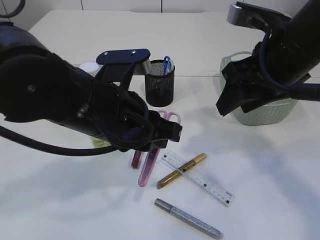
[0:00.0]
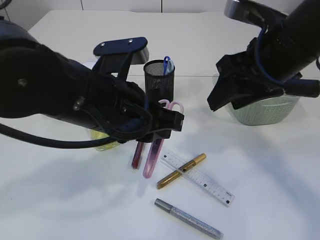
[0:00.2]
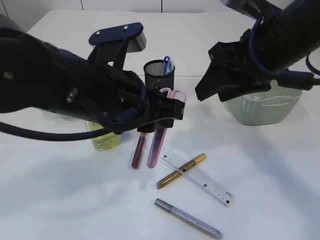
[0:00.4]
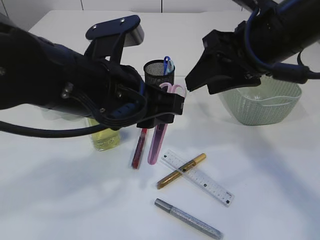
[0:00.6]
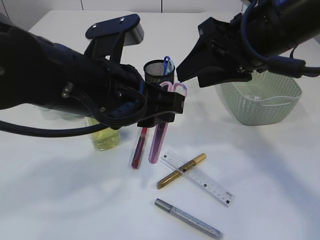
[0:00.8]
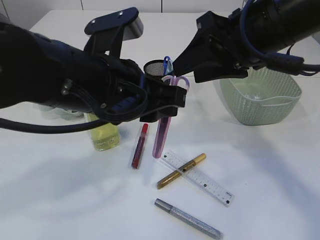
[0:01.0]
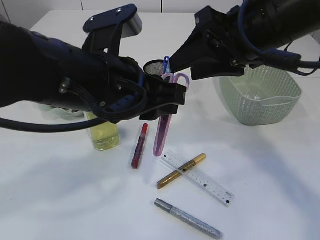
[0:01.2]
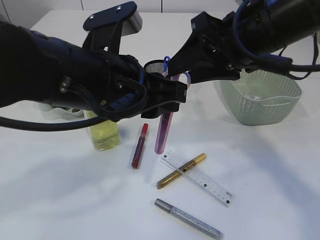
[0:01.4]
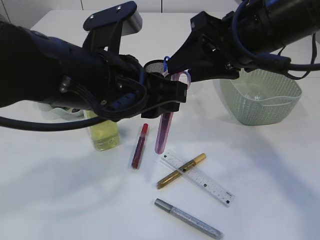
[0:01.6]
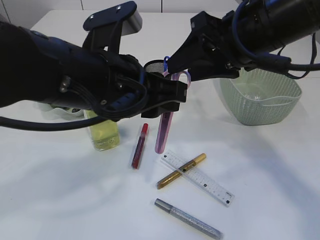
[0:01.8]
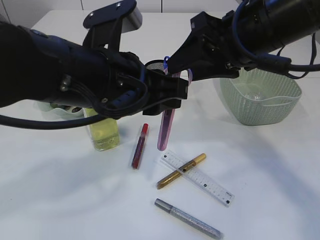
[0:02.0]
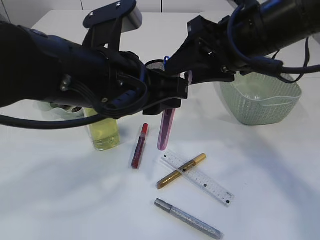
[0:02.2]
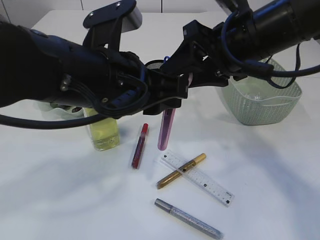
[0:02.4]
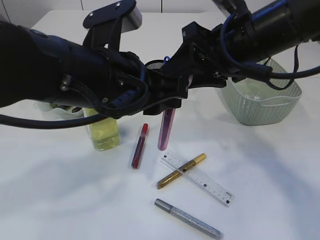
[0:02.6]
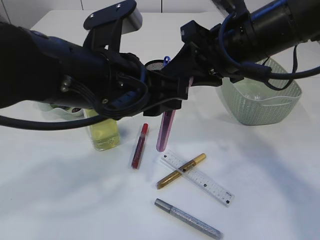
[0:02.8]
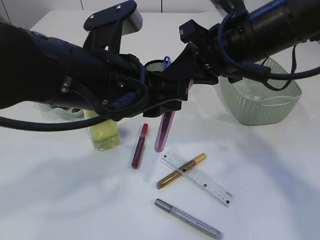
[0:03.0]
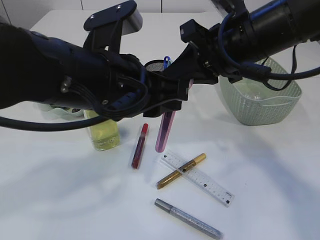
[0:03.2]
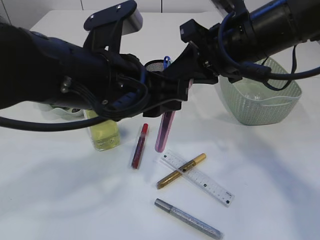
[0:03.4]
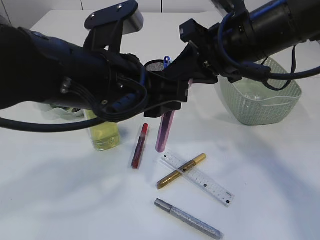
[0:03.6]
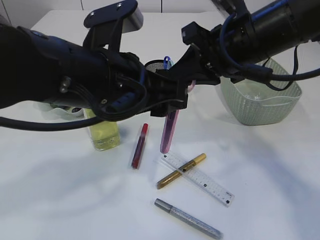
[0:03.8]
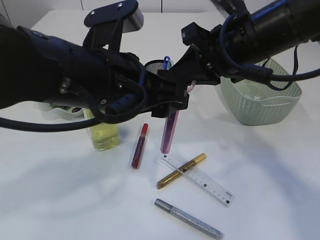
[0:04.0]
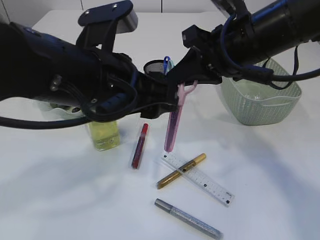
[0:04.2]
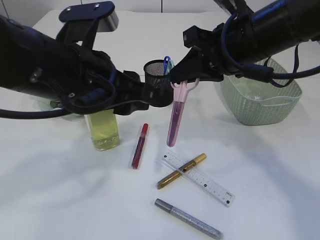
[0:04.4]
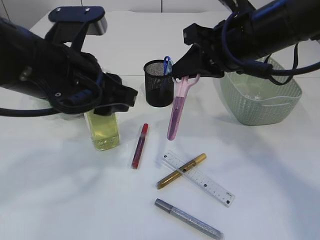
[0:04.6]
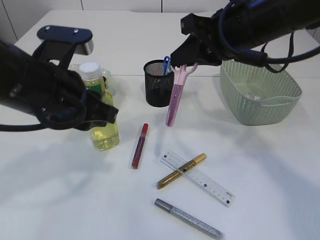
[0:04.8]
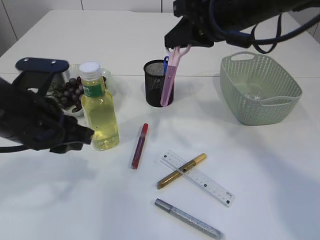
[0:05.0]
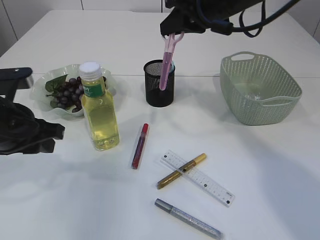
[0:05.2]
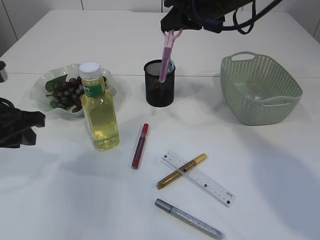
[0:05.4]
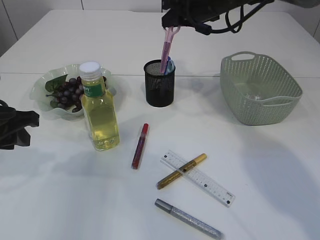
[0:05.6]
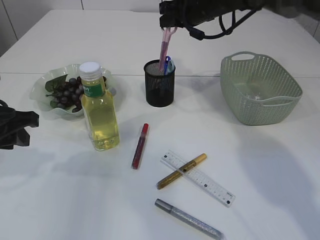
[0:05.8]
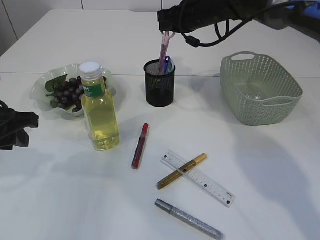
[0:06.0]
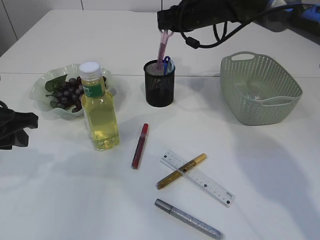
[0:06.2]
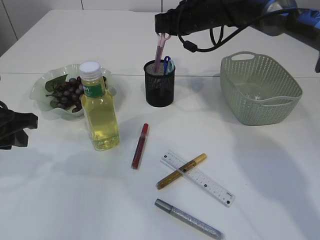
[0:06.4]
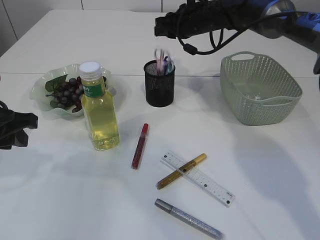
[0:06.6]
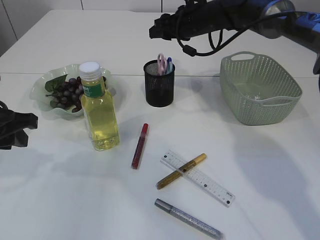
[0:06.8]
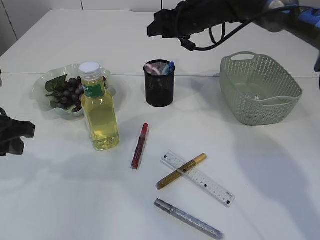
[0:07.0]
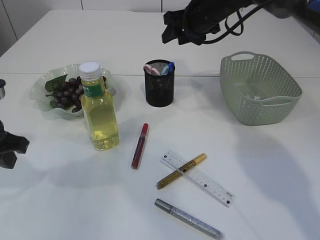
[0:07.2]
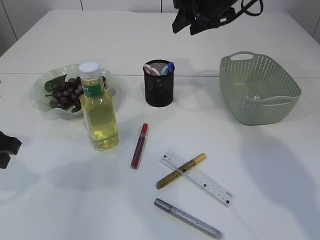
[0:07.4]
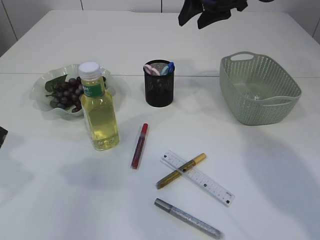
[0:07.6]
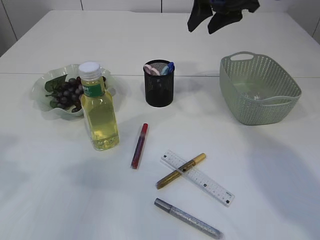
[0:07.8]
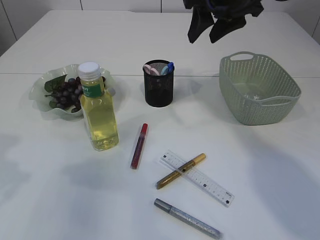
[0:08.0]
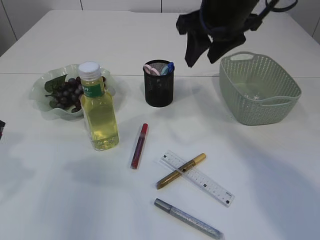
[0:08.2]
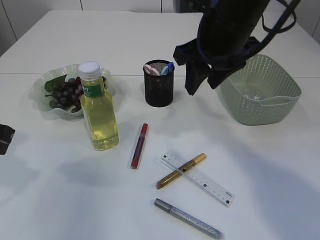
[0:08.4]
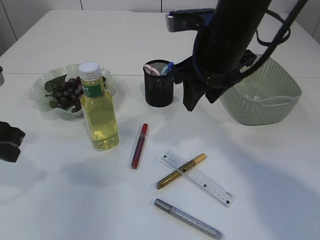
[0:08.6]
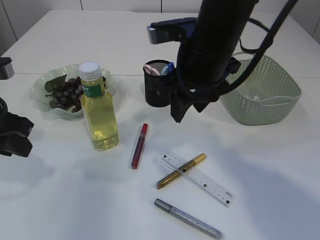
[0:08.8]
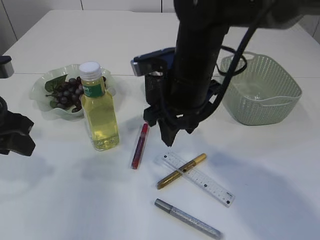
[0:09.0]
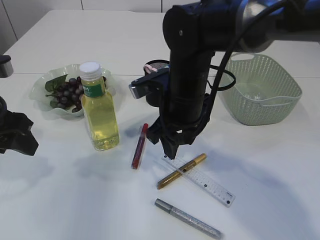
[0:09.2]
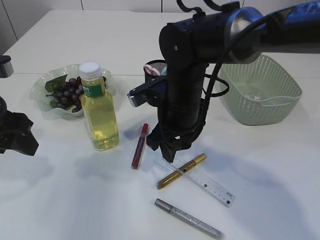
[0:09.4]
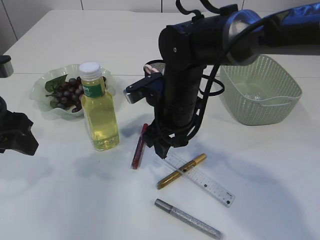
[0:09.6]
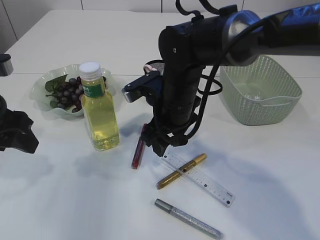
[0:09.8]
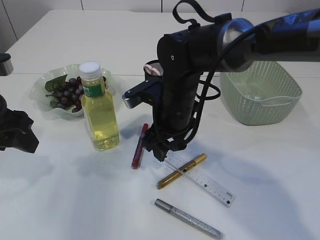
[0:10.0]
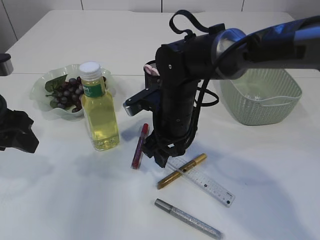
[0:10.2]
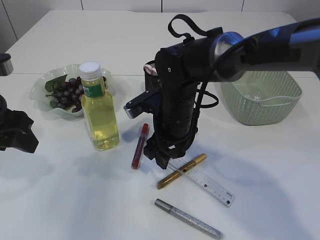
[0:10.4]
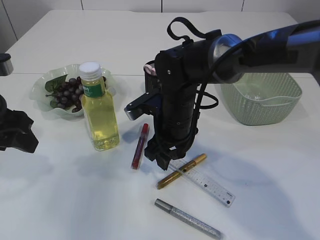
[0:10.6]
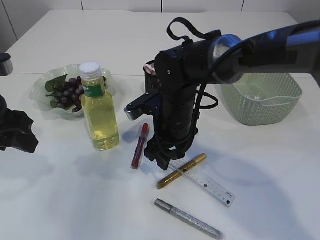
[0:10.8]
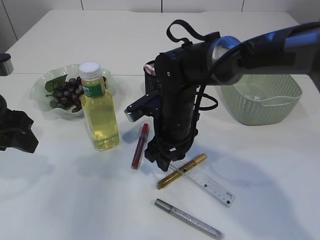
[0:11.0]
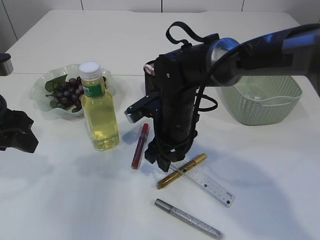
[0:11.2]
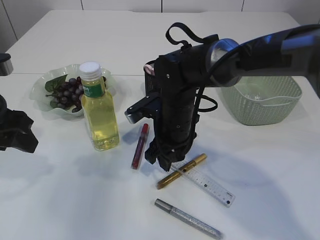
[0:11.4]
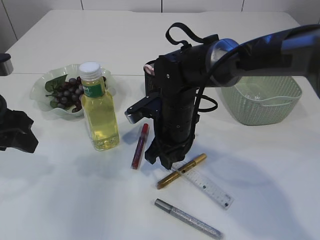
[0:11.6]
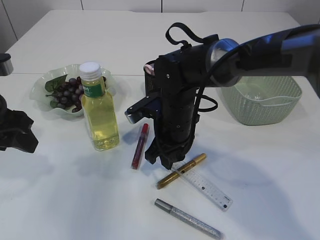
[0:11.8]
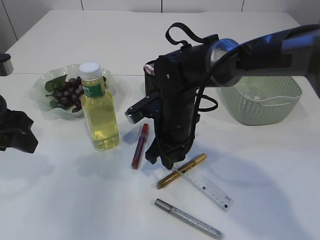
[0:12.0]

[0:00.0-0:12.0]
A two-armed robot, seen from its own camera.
Step, 0:00.0 to 0:05.0: Hand over the pink scissors.
Step, 0:05.2 to 0:06.8: Place the pink scissors into the pen holder.
0:01.6 to 0:03.0: The right gripper closes its fingers.
0:03.0 to 0:04.4: The left gripper opens.
0:04.4 to 0:06.0: The right gripper is displaced forward by approximately 20 cm. Meanwhile the left gripper goes some 20 cm to the left and downward.
0:06.0 to 0:07.6: The right gripper goes roughly 10 cm upward and backward, and opens.
0:07.6 to 0:09.0: The right gripper goes about 20 cm backward, to the left and downward.
0:09.0 to 0:10.4: The right gripper moves downward, some 10 cm.
0:10.4 to 0:12.0: The right gripper closes.

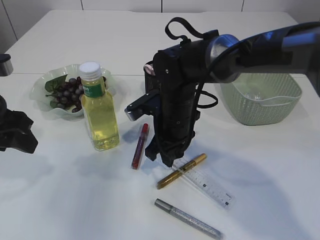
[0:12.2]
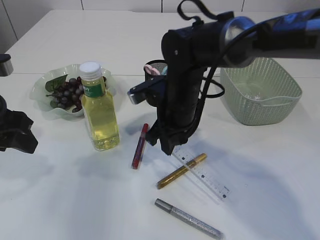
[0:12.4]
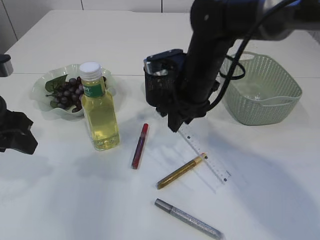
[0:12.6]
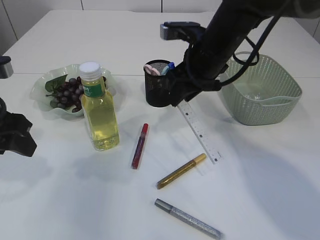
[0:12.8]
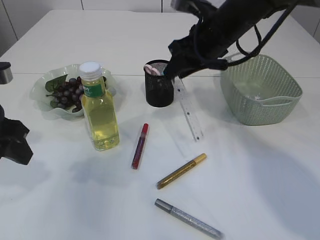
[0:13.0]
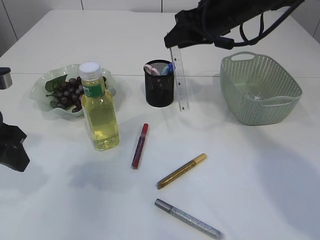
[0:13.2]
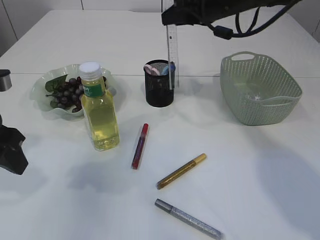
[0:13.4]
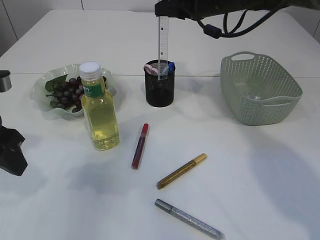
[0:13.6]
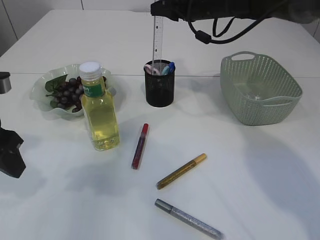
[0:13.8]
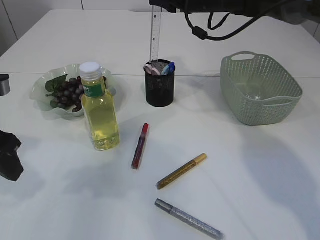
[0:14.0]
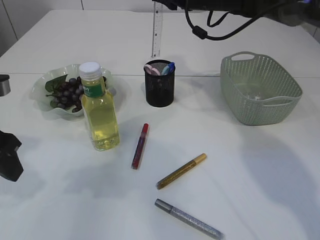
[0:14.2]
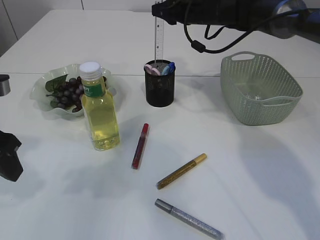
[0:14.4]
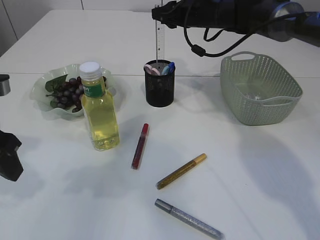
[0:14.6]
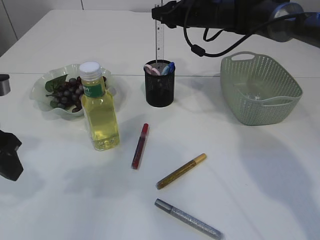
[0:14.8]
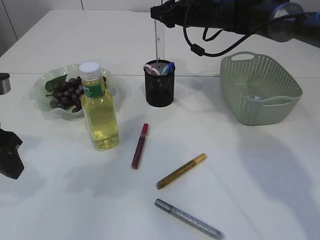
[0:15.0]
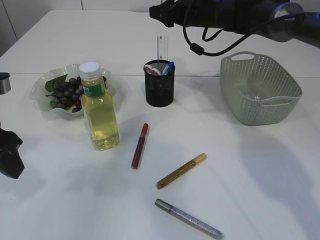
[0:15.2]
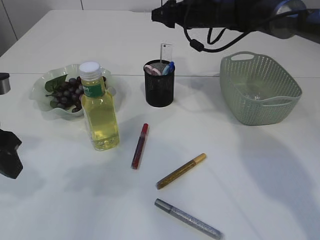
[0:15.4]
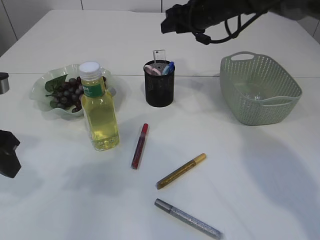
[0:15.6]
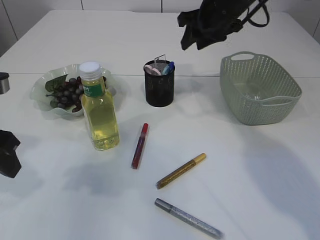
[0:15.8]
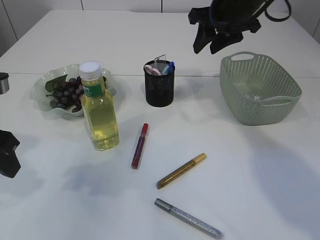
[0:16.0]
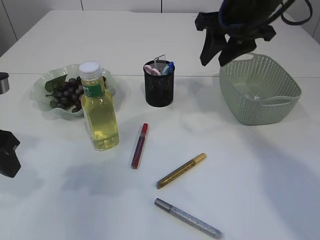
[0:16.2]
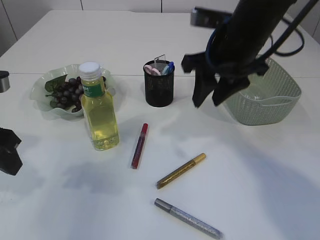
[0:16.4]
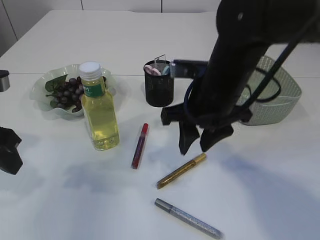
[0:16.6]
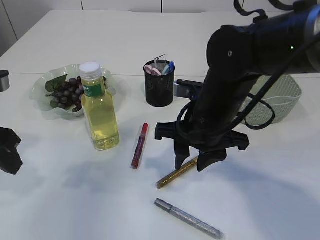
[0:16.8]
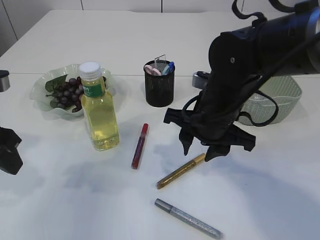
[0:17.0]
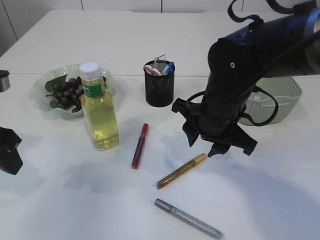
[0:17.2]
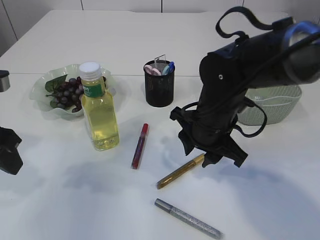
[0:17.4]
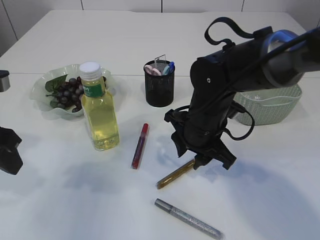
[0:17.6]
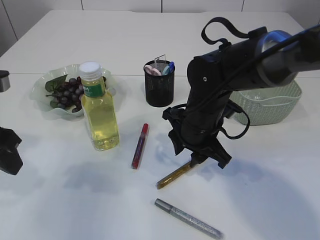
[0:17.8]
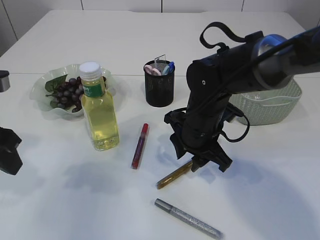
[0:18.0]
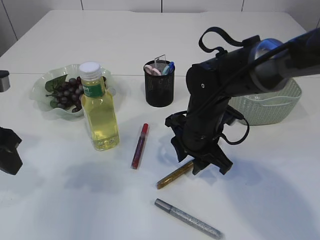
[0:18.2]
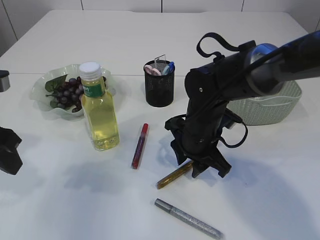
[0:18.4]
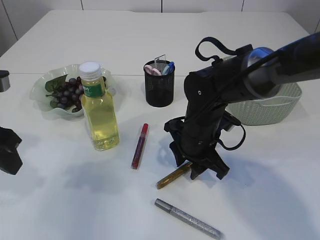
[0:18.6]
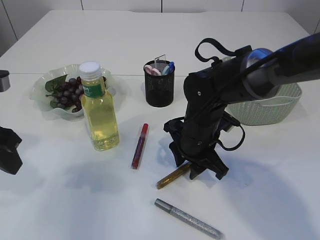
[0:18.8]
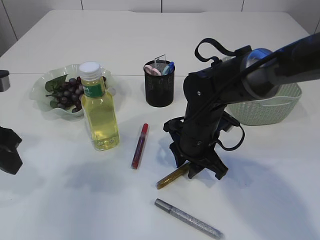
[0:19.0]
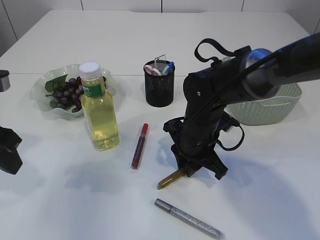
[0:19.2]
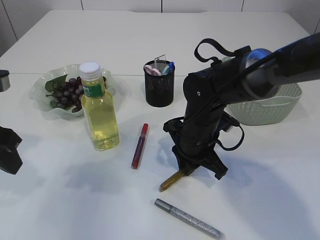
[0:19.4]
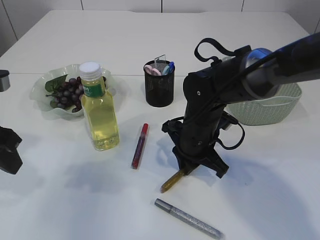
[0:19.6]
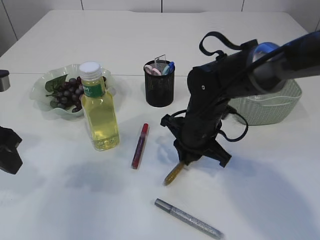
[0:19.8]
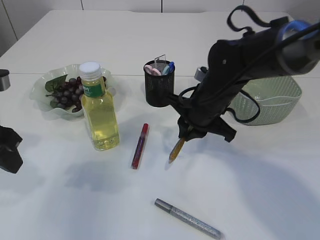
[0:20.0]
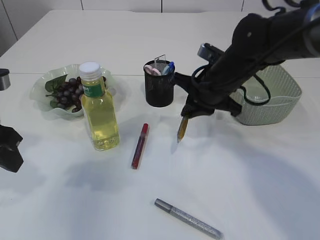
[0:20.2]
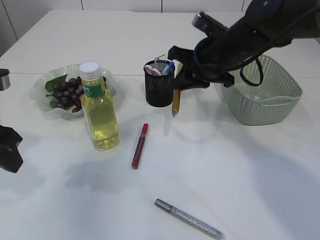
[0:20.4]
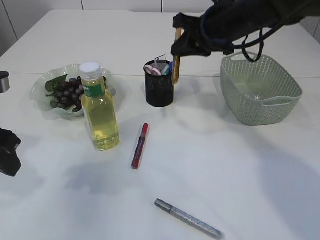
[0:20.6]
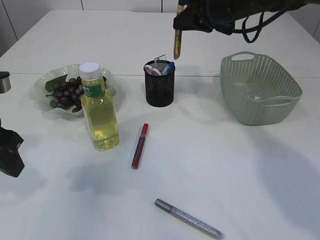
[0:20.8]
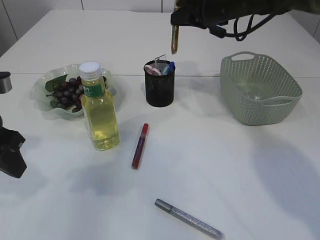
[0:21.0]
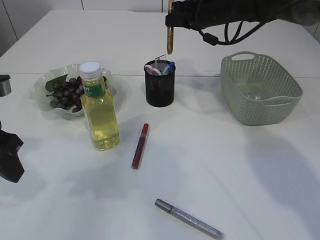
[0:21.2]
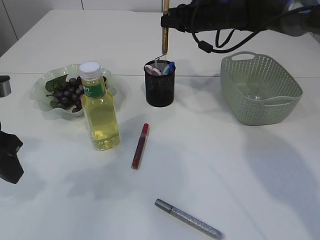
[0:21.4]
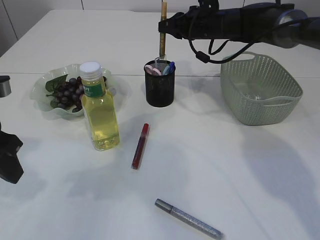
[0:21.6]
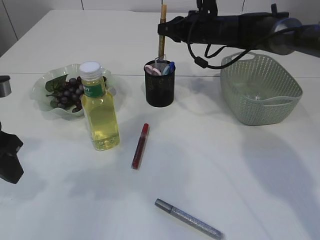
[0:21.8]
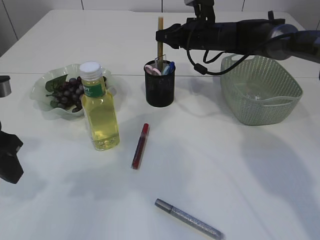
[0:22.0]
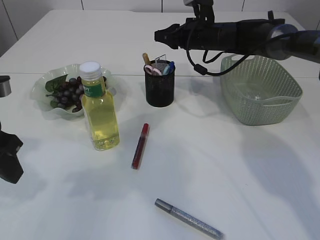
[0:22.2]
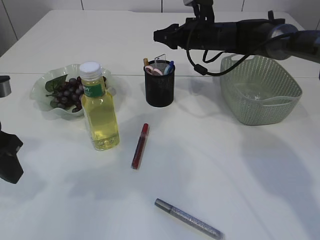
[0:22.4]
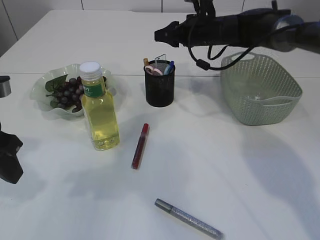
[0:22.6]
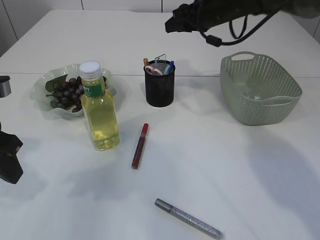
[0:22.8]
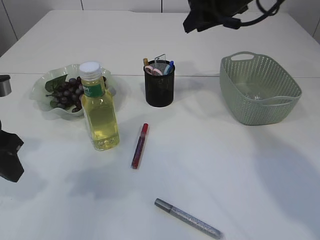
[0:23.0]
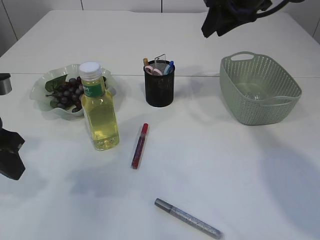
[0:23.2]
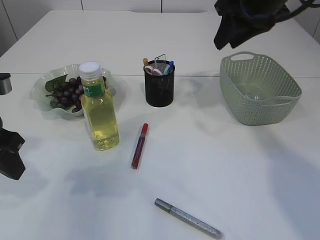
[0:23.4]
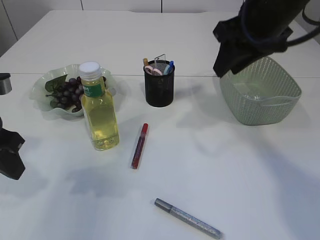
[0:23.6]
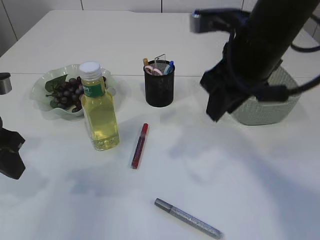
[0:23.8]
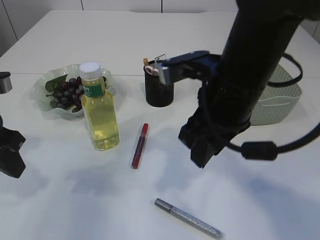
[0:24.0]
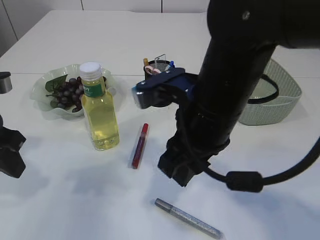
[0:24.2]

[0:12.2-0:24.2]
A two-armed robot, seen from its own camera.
Step, 0:13.0 to 0:15.8: Place the ruler into the pen holder.
Step, 0:16.0 to 0:20.0: pick up the yellow glue.
Step, 0:20.2 to 0:22.2: place the yellow glue into the pen holder.
0:12.2 to 0:13.8: The right gripper travels upward, forward and to the right by roughly 20 cm.
0:13.8 to 0:15.2: The right gripper ends up roughly 5 cm from where it was.
0:15.2 to 0:16.6: The right gripper shifts some 20 cm backward.
0:16.6 to 0:18.2: The right gripper goes about 10 cm downward.
0:18.2 to 0:19.8: The right gripper closes.
0:19.8 to 0:21.2: The right gripper shifts some 20 cm forward and upward.
0:21.2 to 0:22.6: The right gripper shifts some 5 cm downward, and opens.
0:22.6 to 0:24.2: The right gripper moves backward, about 30 cm.
